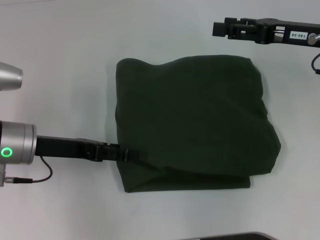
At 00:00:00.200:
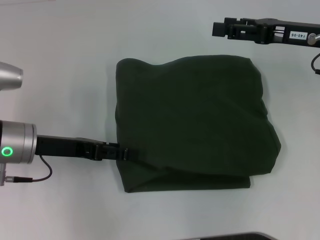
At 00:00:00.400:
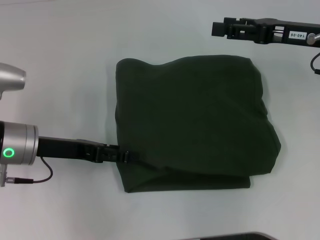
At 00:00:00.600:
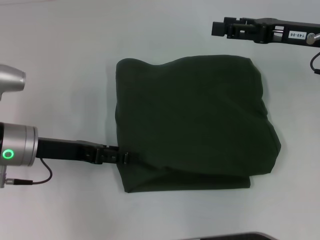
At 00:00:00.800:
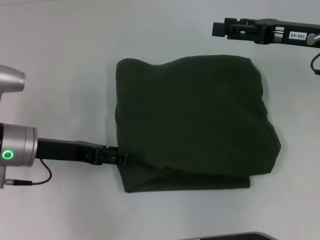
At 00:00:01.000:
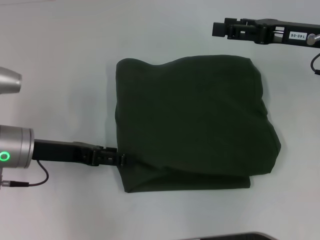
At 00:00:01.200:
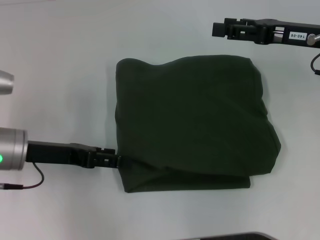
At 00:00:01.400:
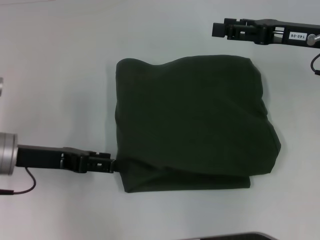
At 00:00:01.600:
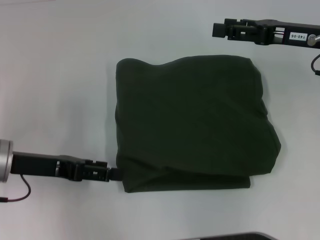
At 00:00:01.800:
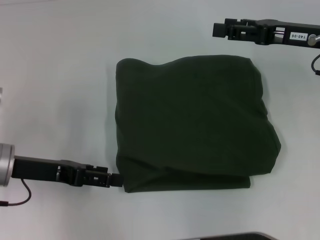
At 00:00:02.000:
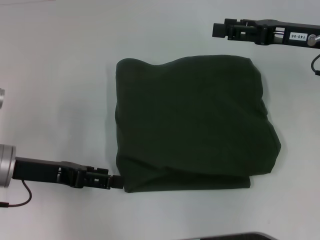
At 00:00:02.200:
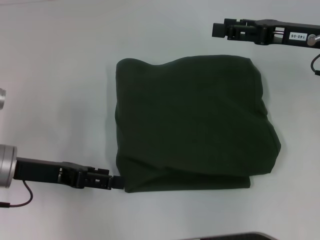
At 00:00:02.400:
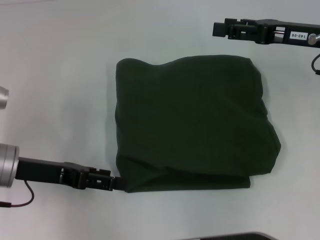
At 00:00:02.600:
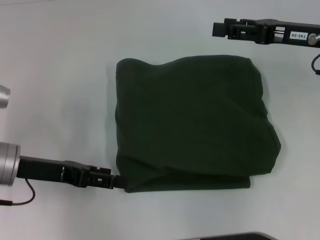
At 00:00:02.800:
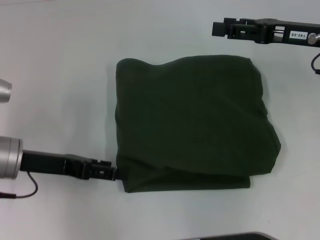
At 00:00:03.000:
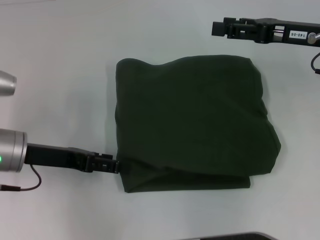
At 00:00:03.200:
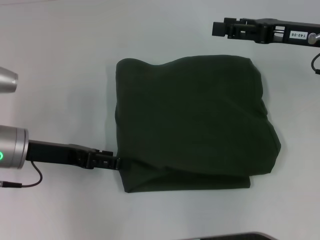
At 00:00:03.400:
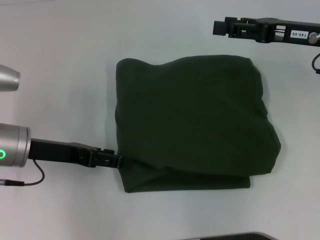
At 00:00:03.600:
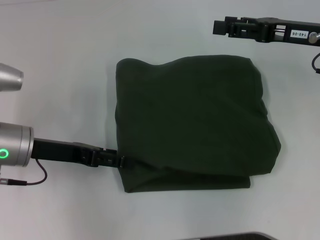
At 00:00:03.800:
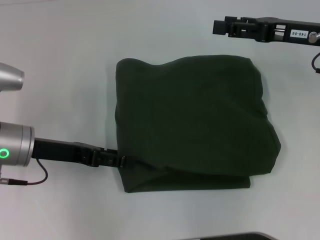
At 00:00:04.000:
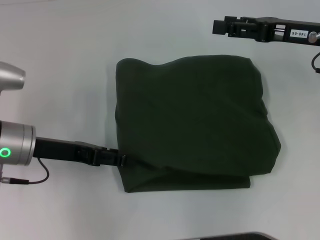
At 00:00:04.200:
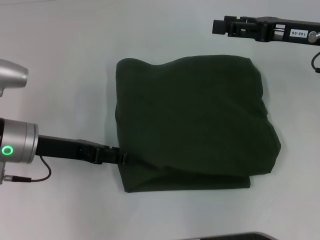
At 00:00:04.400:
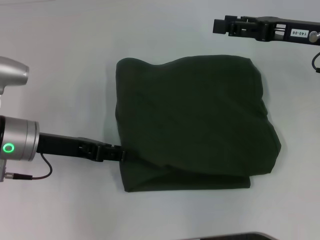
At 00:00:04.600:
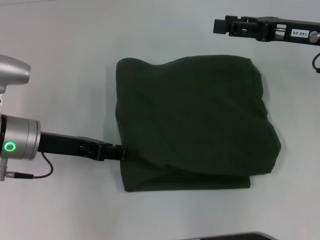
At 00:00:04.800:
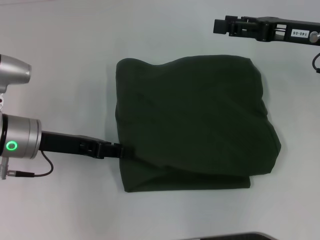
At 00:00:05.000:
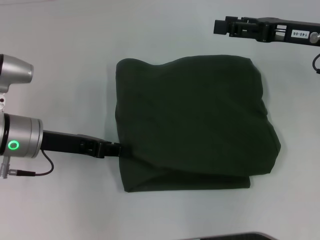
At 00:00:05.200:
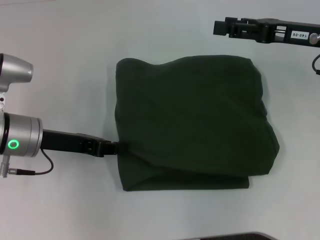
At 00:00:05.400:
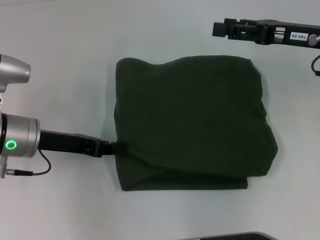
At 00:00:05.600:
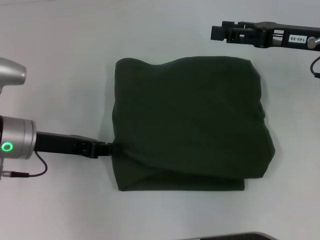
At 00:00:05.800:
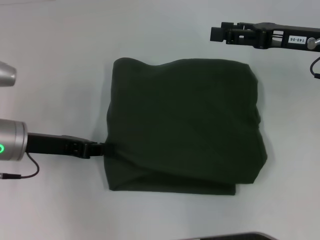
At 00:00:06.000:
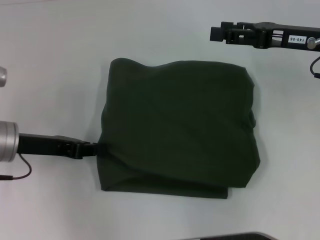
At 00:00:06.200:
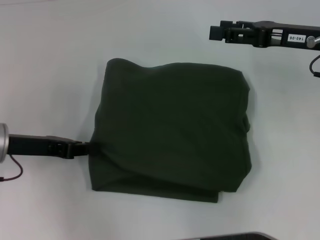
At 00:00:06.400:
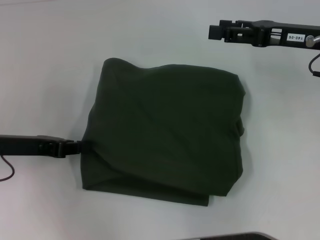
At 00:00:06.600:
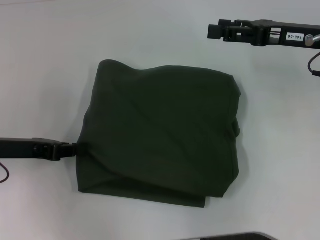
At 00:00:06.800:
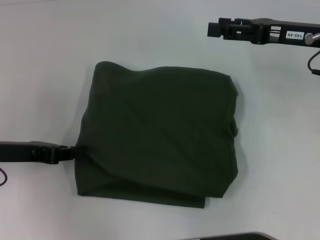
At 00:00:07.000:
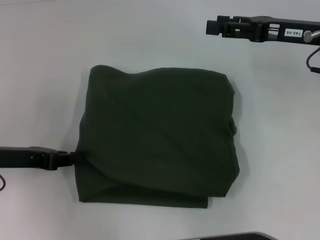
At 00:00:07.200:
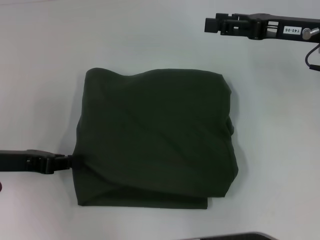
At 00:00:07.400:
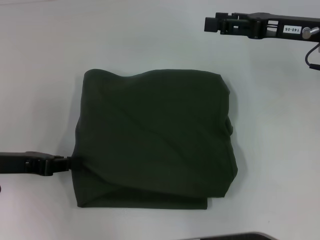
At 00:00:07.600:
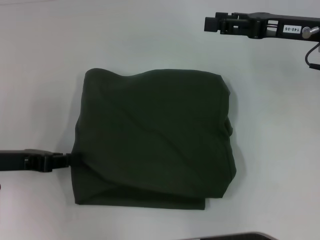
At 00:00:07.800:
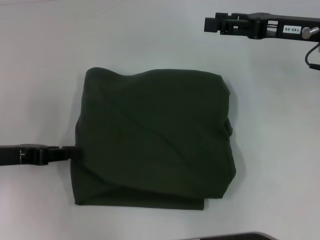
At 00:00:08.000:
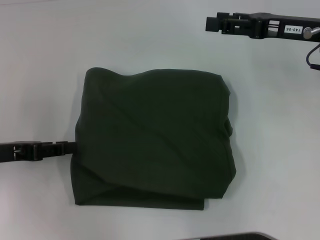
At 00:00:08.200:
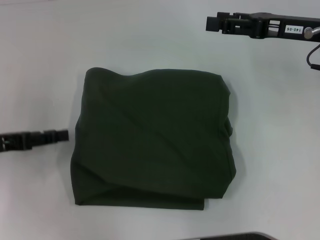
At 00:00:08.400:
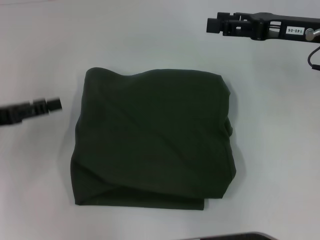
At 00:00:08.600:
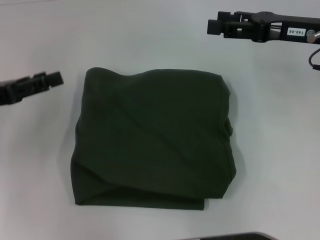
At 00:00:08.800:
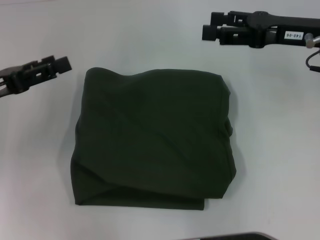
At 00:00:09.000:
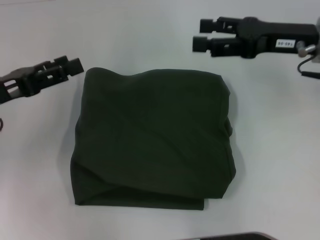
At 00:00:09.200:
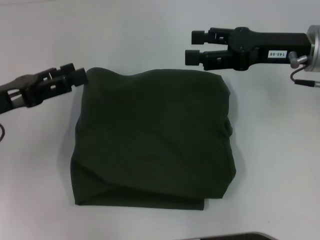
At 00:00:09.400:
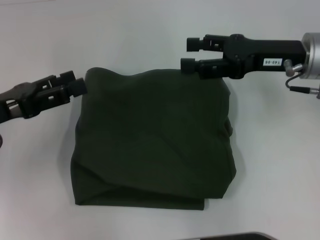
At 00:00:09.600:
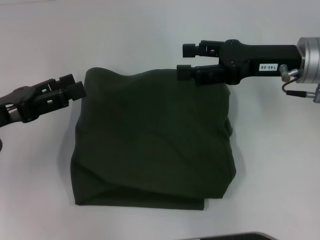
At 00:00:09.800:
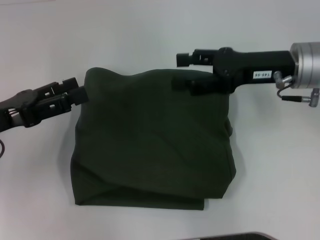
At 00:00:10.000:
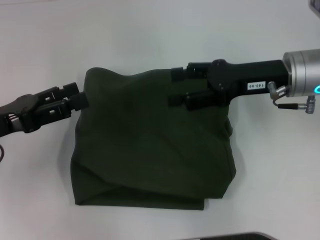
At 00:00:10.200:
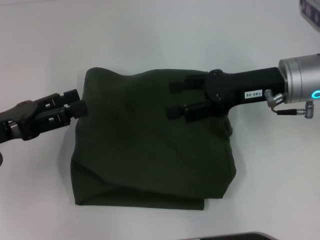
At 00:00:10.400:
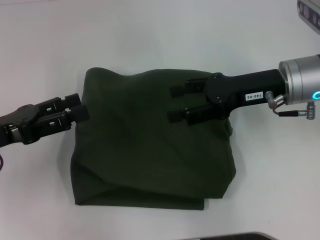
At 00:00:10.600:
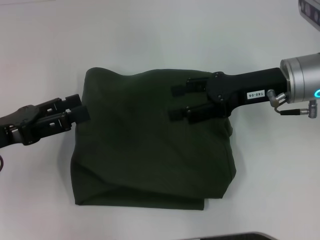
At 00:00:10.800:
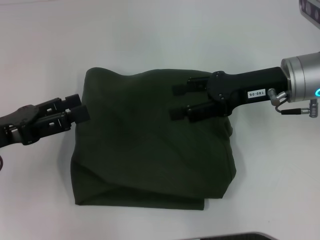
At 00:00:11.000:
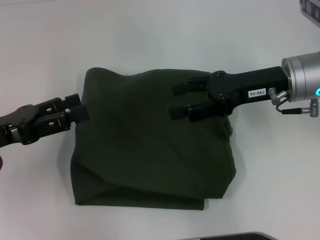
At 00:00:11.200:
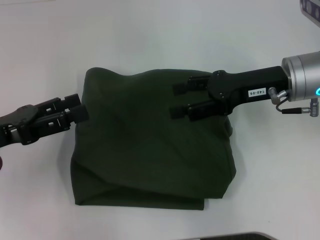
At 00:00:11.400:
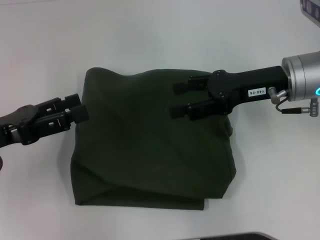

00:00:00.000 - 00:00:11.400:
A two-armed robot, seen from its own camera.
00:00:00.000 - 00:00:01.400: The grippers move only a little.
00:00:01.400 - 00:00:02.800: Both grippers stay put.
00:00:02.800 - 00:00:04.200: The grippers stay close to where they were, moving slightly.
00:00:04.200 - 00:00:05.600: The left gripper closes.
00:00:05.600 - 00:00:07.200: The left gripper shifts approximately 5 cm to the left.
00:00:07.200 - 00:00:08.600: The left gripper opens.
00:00:08.600 - 00:00:10.000: The right gripper moves to the left, about 5 cm.
00:00:10.000 - 00:00:11.400: The grippers make only small movements.
